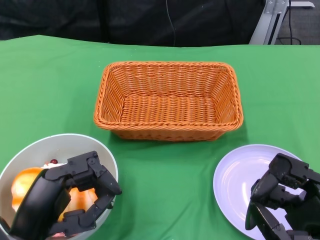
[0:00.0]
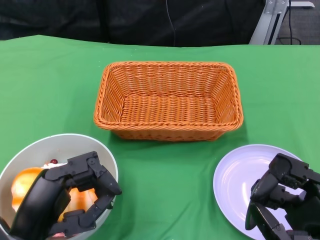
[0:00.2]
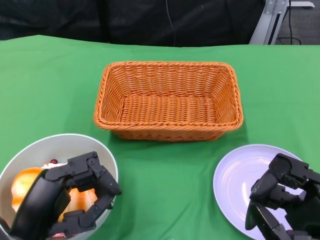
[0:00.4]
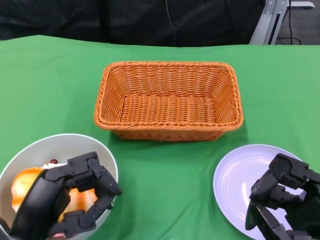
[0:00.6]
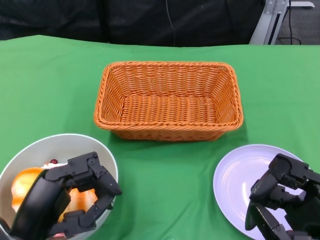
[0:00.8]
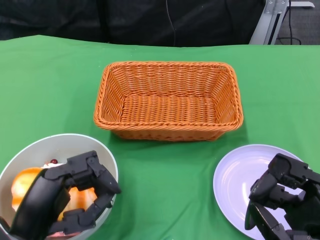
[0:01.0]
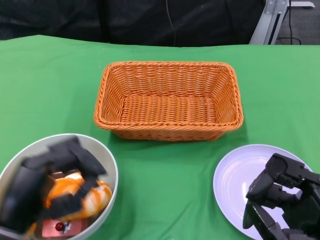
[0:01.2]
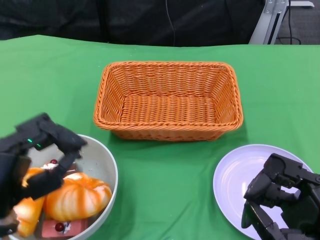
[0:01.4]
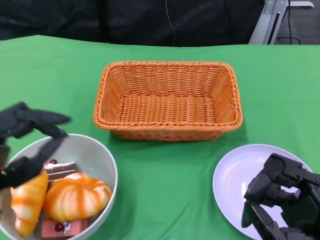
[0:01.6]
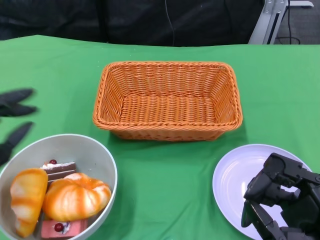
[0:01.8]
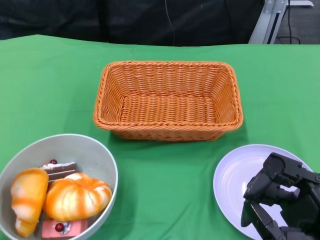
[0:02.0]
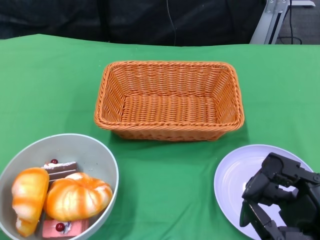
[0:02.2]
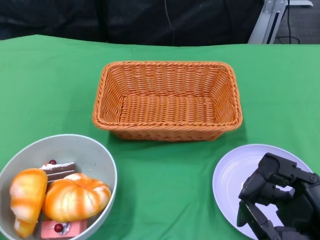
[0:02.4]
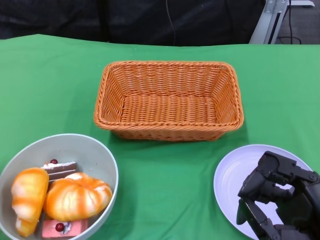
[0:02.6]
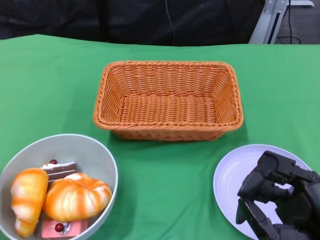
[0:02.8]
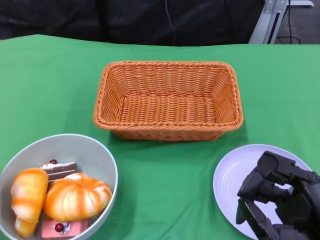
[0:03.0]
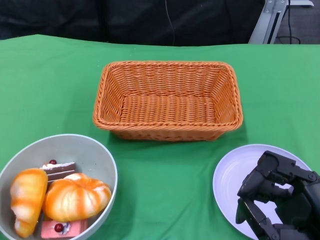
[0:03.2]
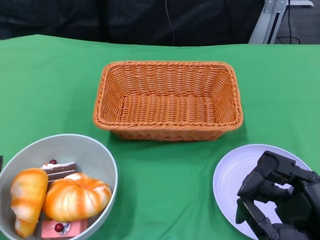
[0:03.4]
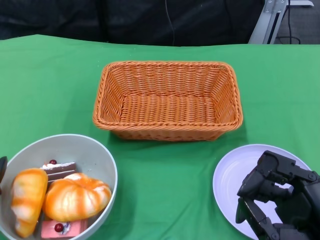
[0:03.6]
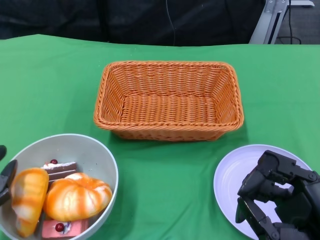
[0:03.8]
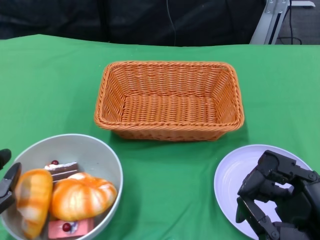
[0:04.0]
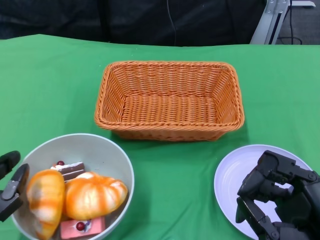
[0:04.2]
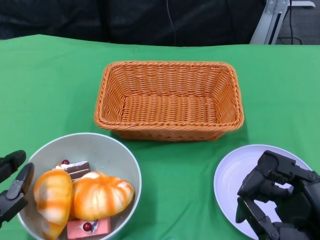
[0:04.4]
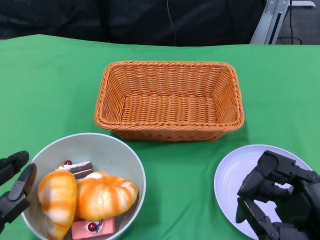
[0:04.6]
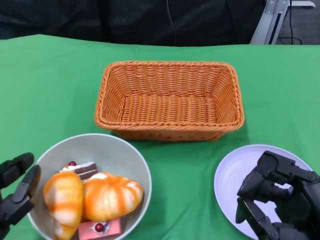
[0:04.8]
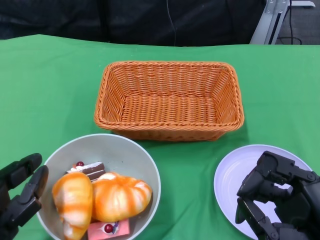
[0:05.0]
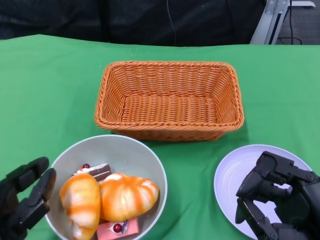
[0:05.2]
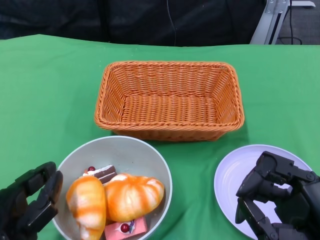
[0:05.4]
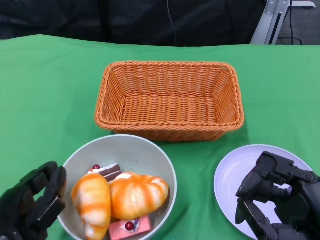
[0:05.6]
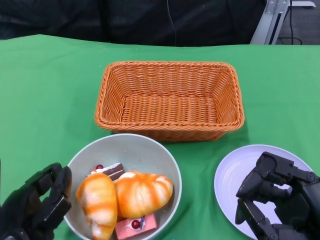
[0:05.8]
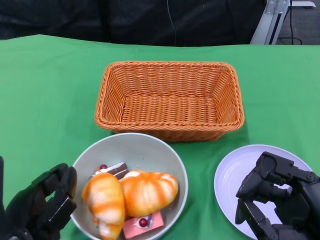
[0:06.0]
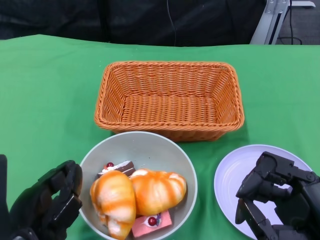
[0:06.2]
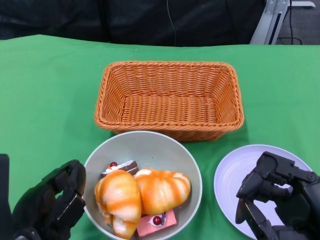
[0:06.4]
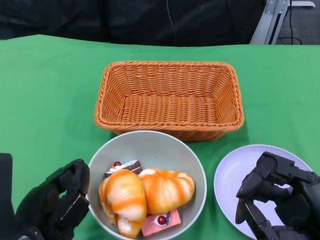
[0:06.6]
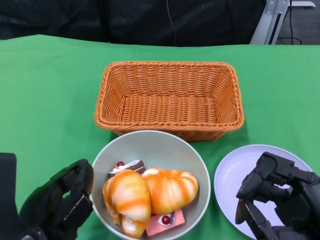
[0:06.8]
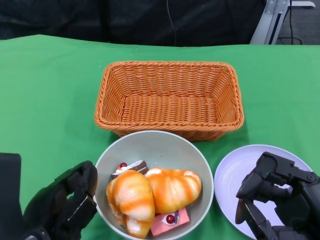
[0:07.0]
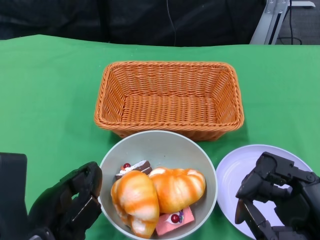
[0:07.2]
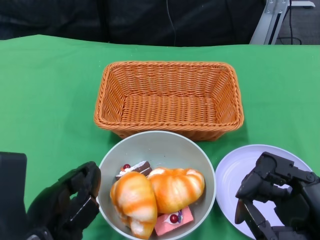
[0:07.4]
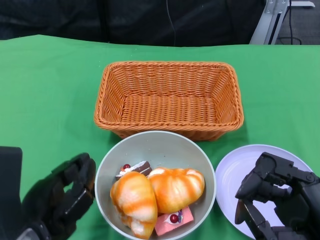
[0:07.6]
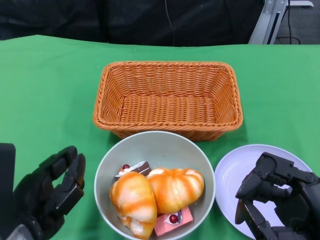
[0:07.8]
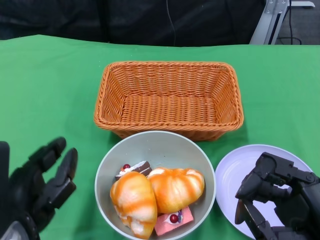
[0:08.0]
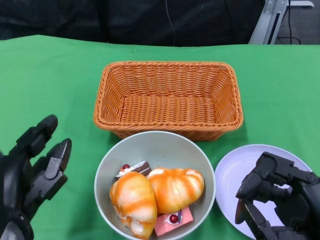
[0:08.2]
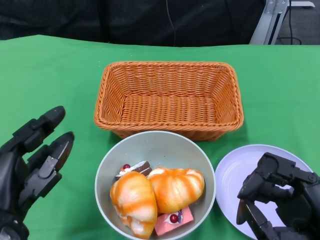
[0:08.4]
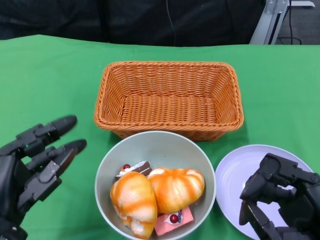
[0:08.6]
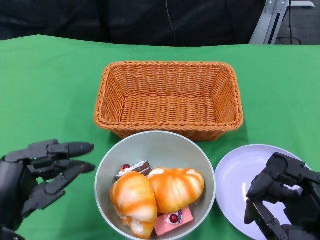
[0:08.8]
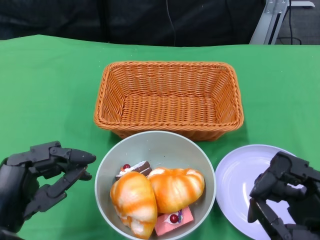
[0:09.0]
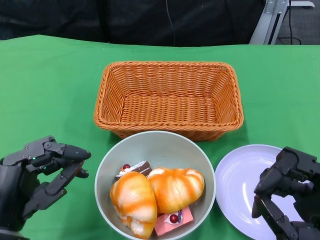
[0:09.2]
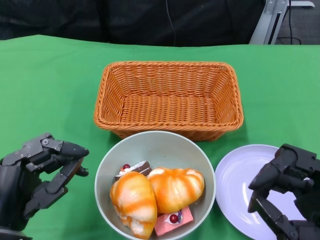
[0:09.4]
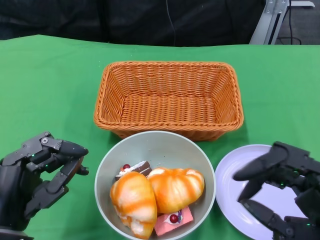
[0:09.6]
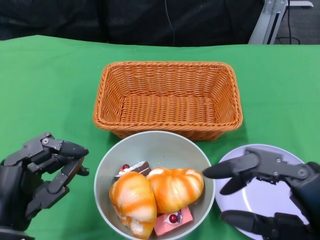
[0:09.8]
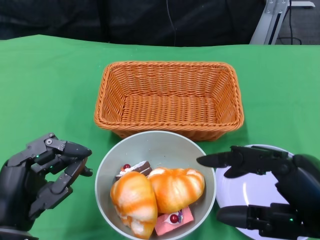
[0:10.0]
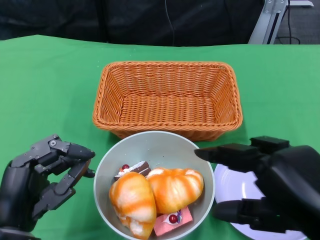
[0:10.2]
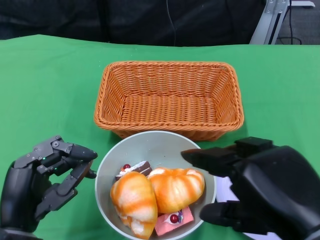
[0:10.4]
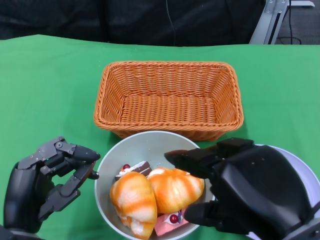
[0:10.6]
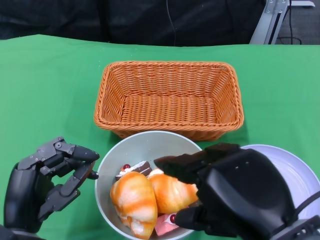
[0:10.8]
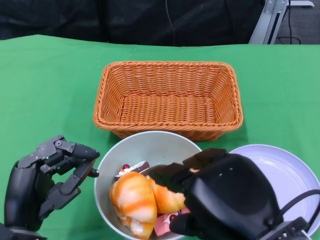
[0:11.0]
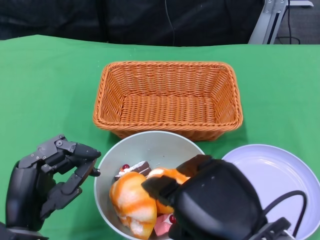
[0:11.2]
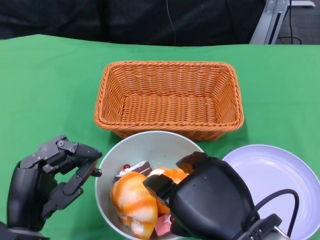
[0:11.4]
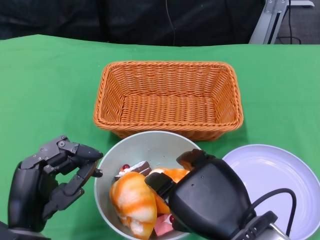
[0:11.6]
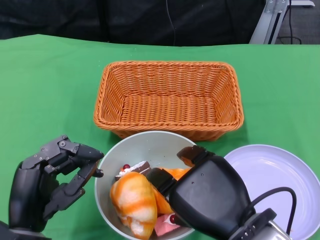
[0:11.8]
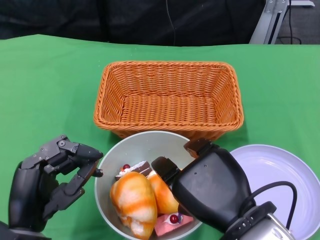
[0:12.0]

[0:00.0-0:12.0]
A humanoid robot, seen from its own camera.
Step, 0:00.0 to 0:09.0: Push the bowl to the center of the table using the left gripper.
0:01.6 to 0:03.0: The left hand moves to the left, about 5 cm.
0:03.0 to 0:04.4: The left hand is displaced to the right by approximately 5 cm.
0:04.4 to 0:06.0: The left hand goes roughly 5 cm to the right.
0:06.0 to 0:07.6: The hands stay close to where they were, moving slightly.
0:07.6 to 0:09.0: The left hand changes place by roughly 5 cm.
0:09.0 to 0:10.4: The right hand shifts some 10 cm upward and to the left.
0:10.4 to 0:12.0: The right hand moves to the left, some 5 cm.

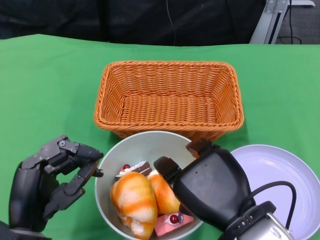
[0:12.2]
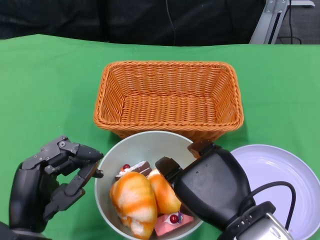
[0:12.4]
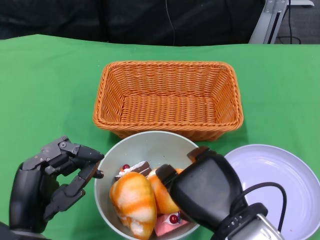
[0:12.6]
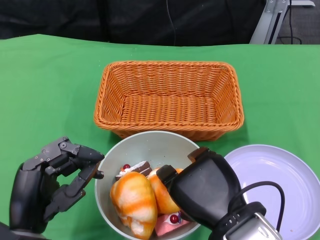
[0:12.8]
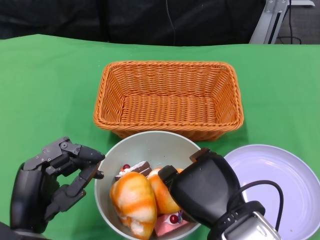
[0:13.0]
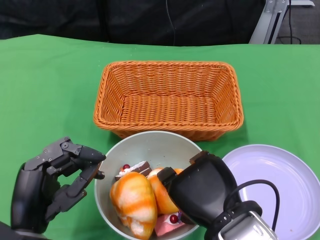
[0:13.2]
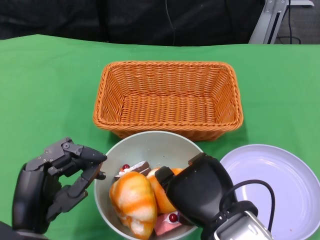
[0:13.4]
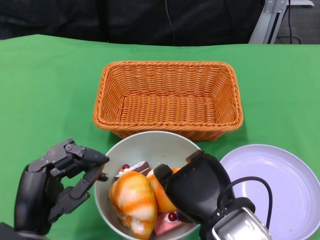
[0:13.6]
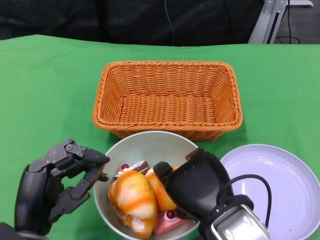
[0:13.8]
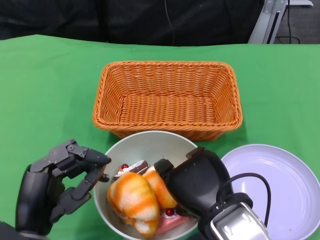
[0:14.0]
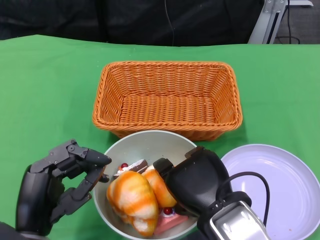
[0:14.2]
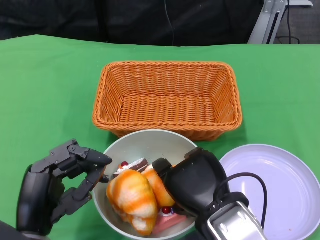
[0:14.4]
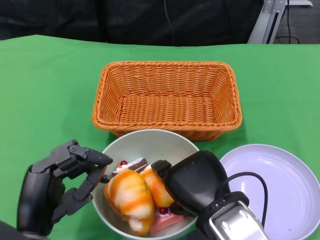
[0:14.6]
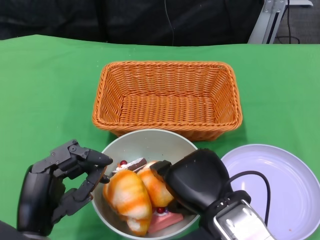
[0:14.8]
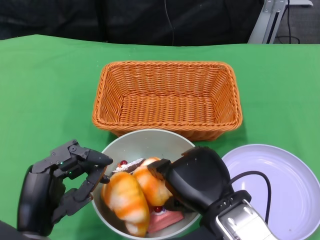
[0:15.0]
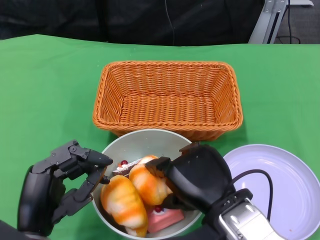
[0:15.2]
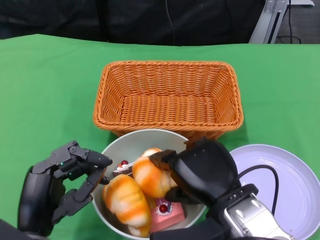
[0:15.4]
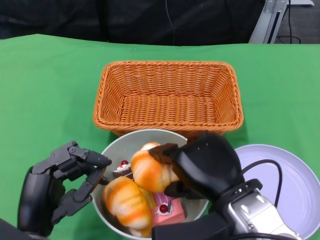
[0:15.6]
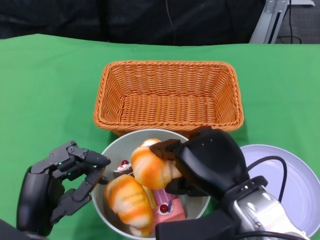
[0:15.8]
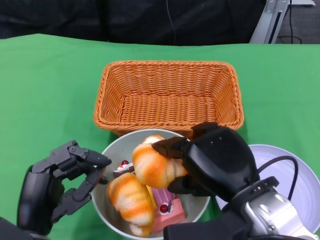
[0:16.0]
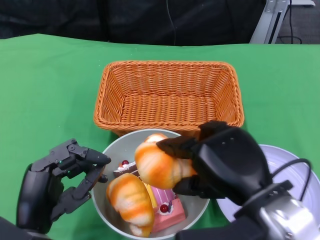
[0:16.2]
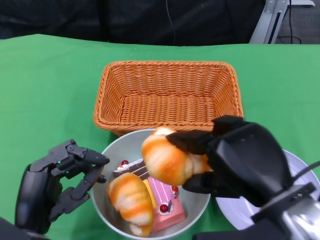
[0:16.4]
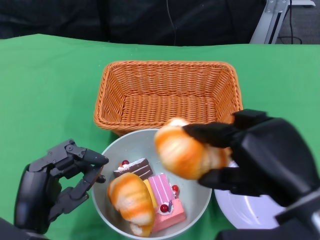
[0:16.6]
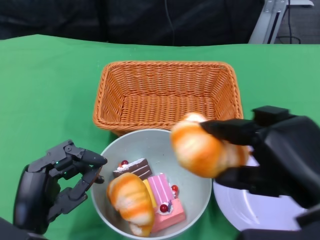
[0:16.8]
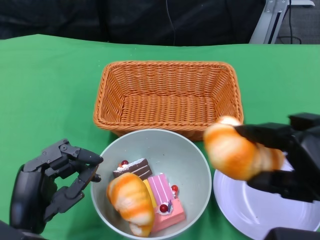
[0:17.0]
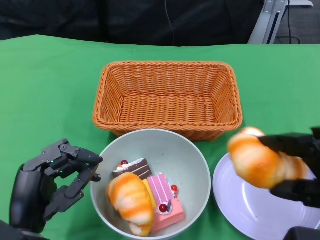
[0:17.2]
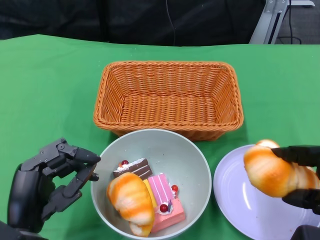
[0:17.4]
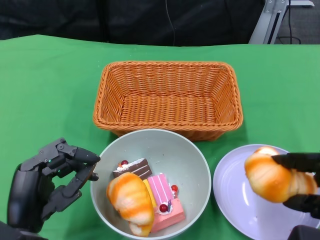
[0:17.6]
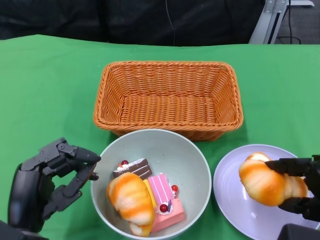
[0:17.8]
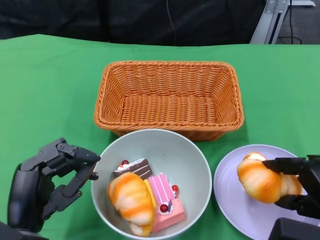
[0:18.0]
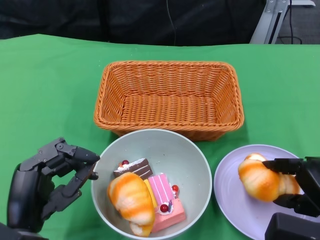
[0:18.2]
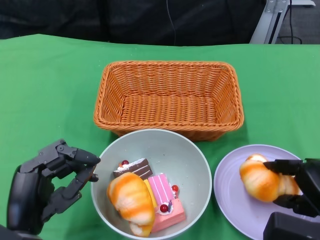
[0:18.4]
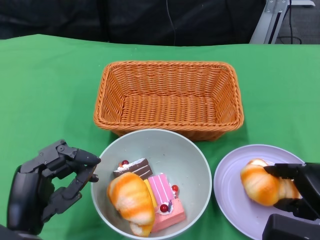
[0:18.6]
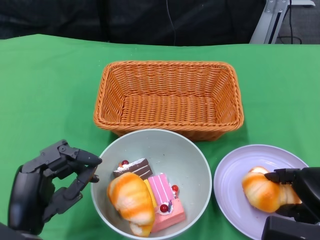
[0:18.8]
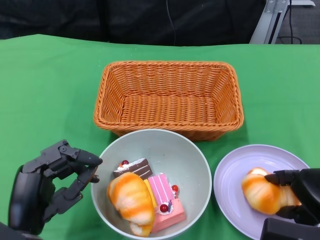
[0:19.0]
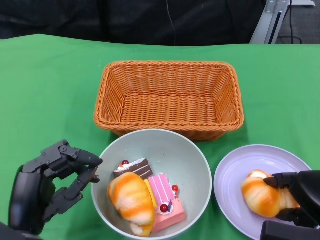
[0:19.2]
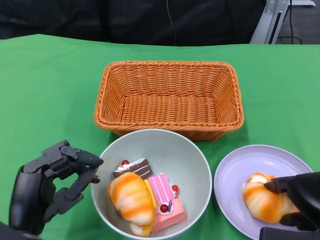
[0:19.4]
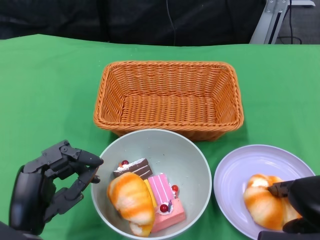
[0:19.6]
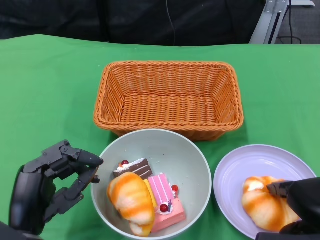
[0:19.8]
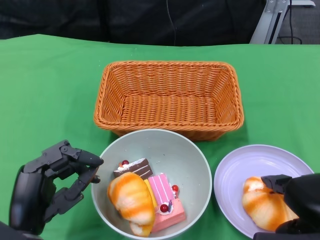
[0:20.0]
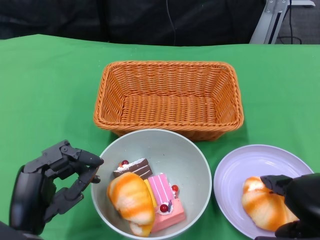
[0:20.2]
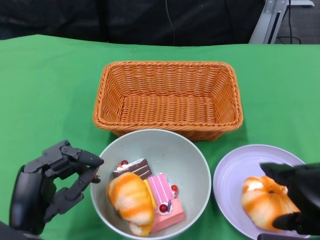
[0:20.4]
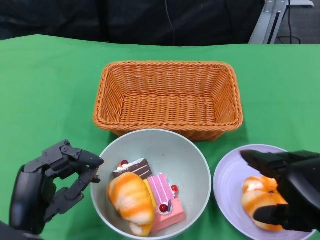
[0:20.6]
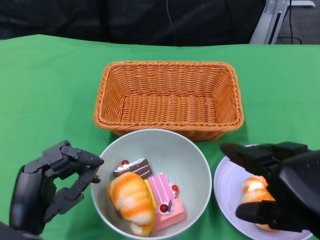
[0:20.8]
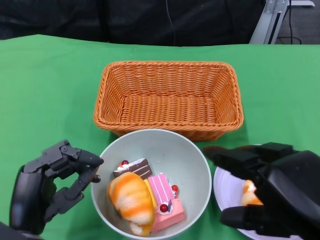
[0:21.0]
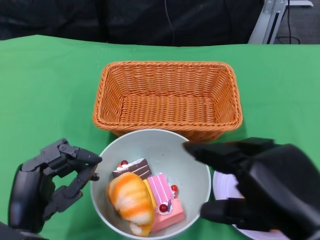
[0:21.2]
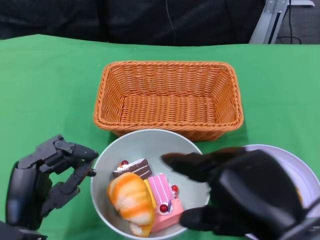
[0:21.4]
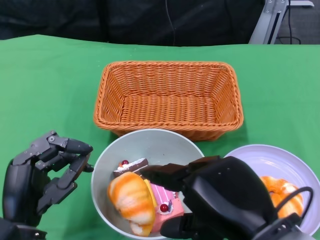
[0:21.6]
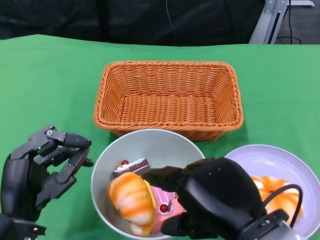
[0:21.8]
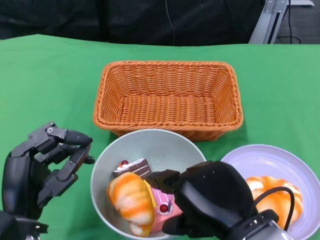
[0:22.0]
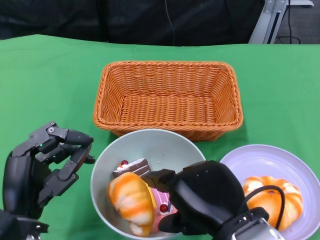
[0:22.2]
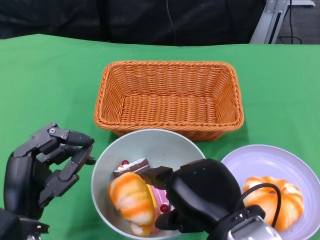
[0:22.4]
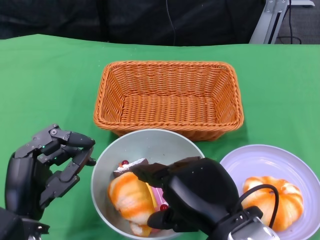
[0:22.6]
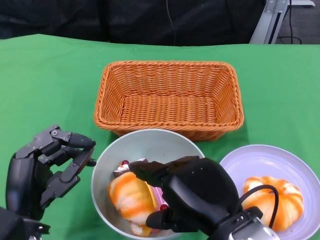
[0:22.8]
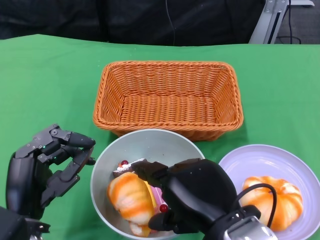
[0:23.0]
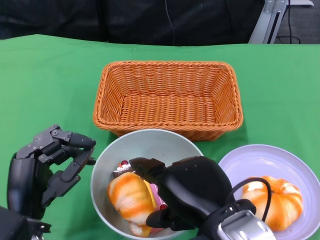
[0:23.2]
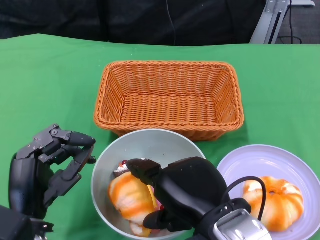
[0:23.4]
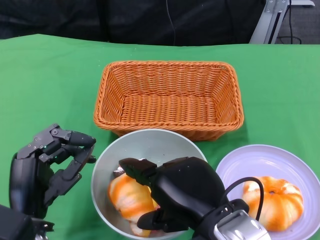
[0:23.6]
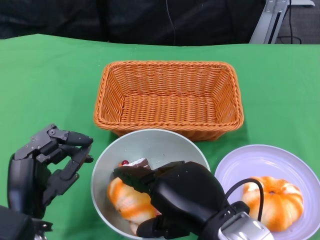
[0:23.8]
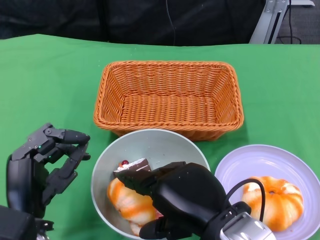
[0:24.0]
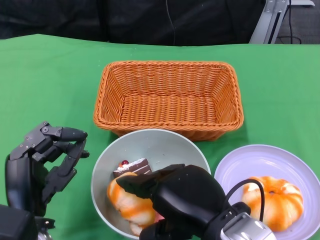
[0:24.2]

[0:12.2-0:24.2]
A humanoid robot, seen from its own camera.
0:12.2 to 0:15.2: The hands make only small movements.
0:15.2 to 0:16.6: The right hand goes roughly 10 cm to the right and upward.
0:16.6 to 0:18.2: The right hand is displaced downward and to the right by about 10 cm.
0:19.8 to 0:21.2: The right hand travels upward and to the left by roughly 10 cm.
0:21.2 to 0:22.6: The right hand heads to the left, covering approximately 10 cm.
0:22.6 to 0:24.2: There are only small adjustments of the hands.
